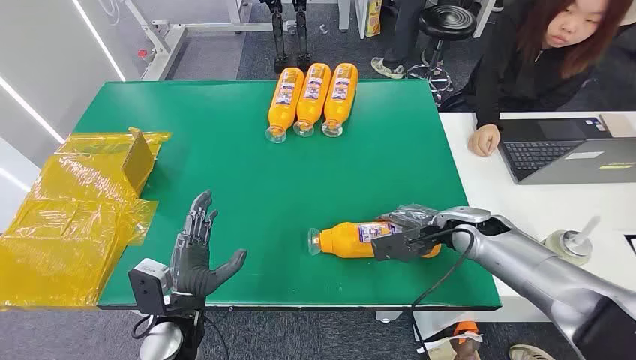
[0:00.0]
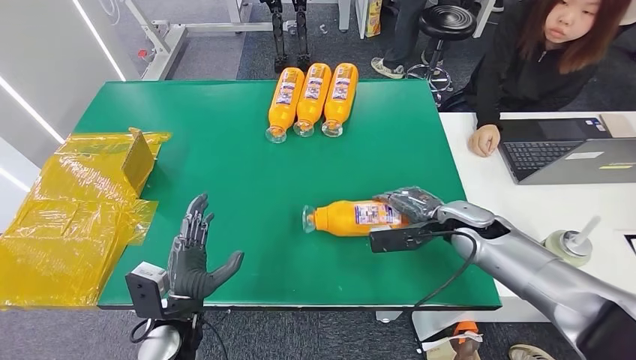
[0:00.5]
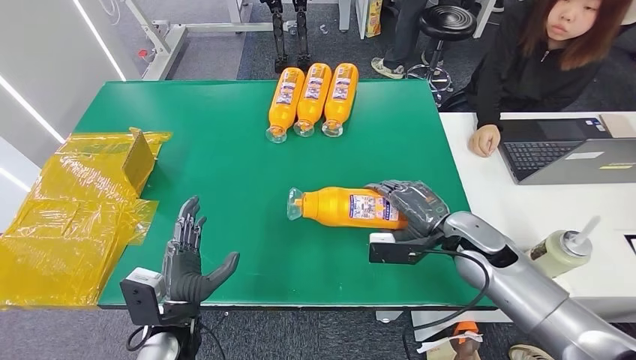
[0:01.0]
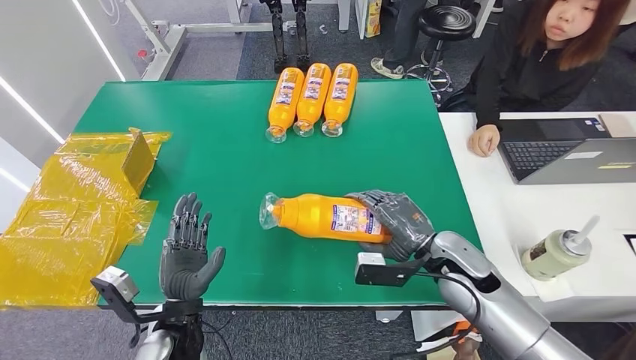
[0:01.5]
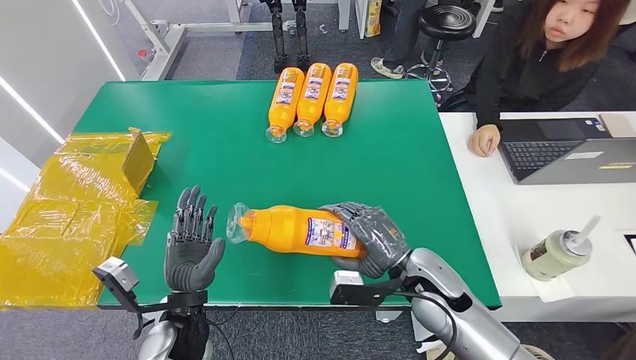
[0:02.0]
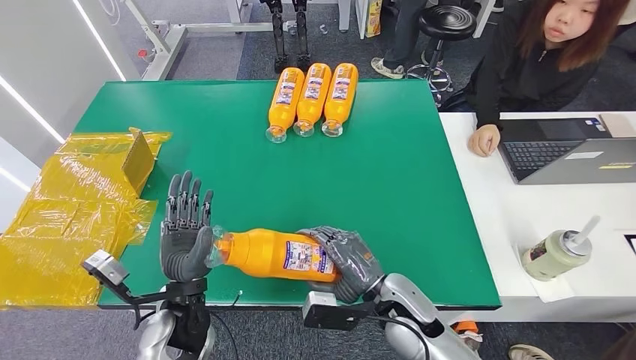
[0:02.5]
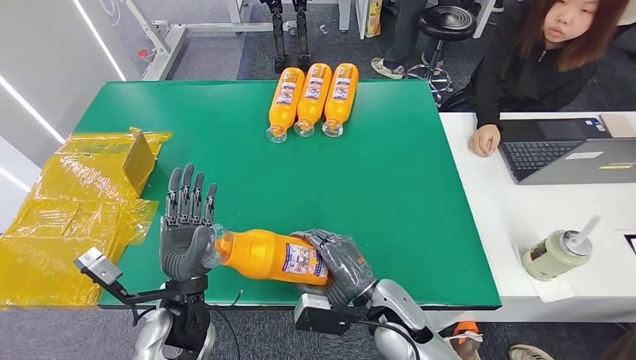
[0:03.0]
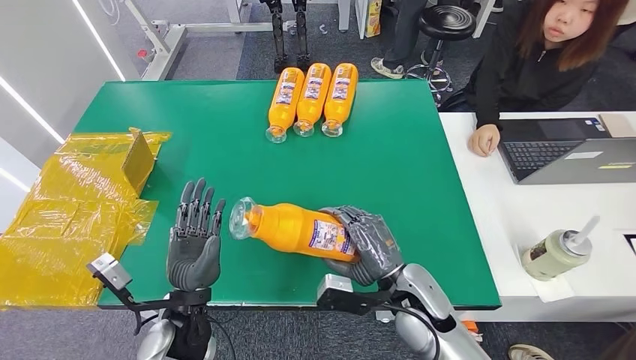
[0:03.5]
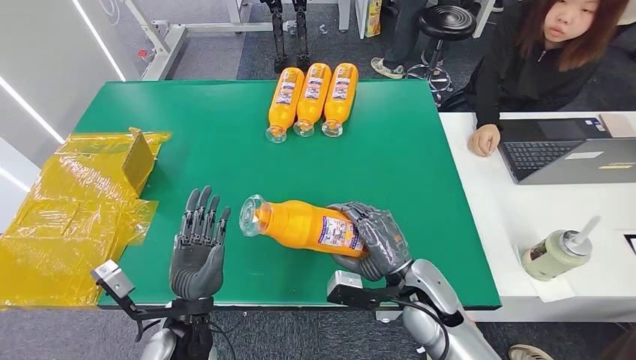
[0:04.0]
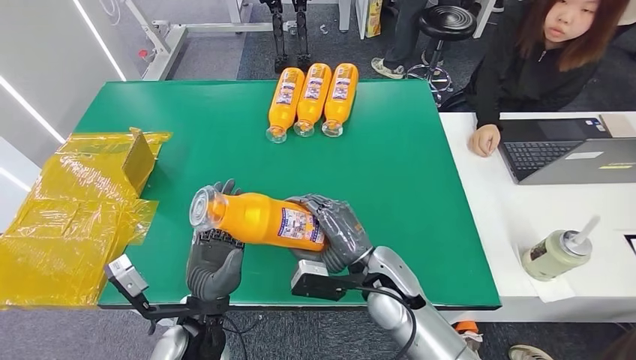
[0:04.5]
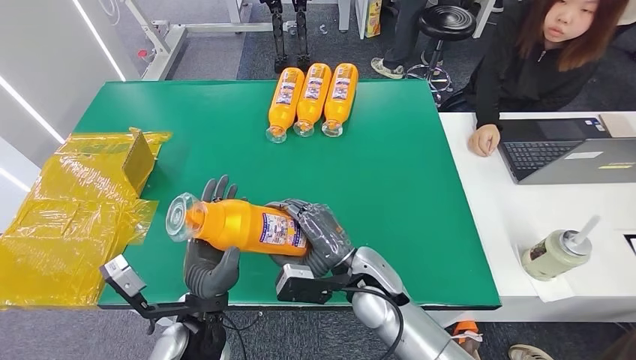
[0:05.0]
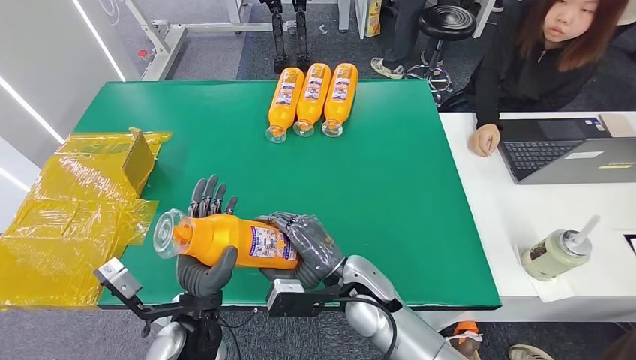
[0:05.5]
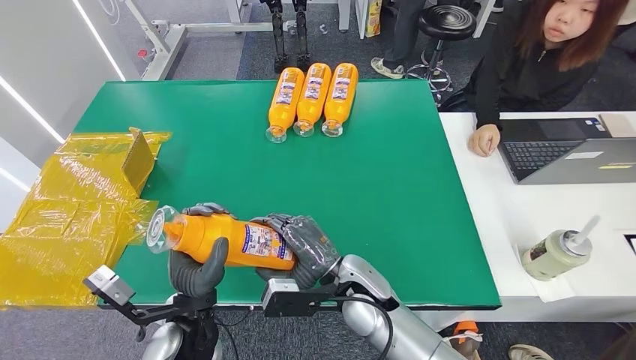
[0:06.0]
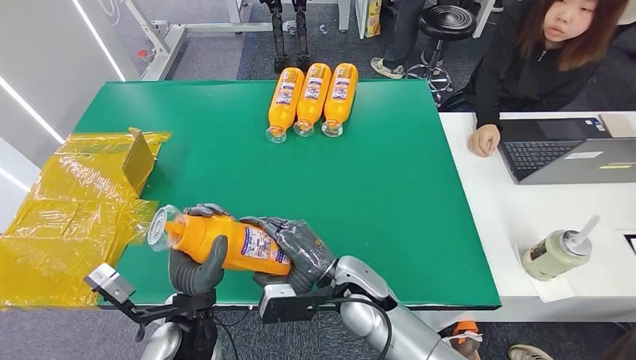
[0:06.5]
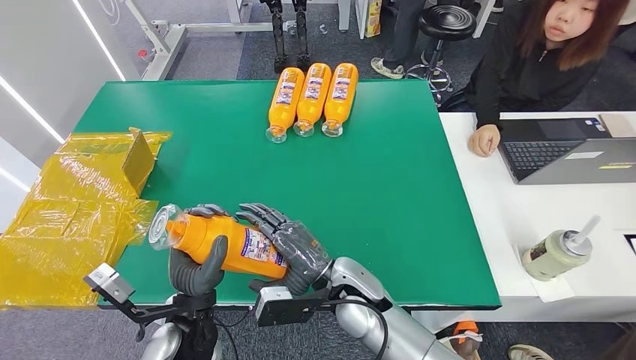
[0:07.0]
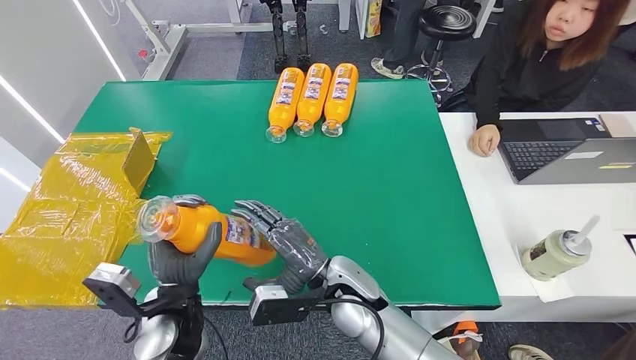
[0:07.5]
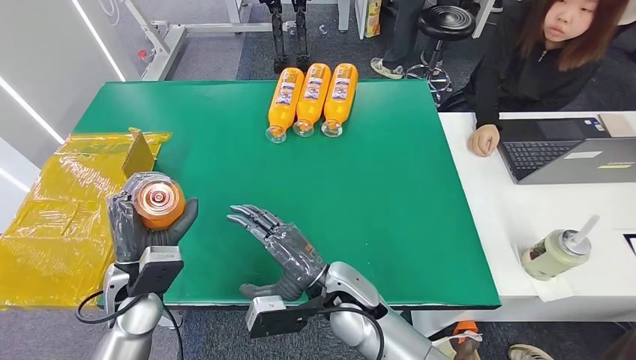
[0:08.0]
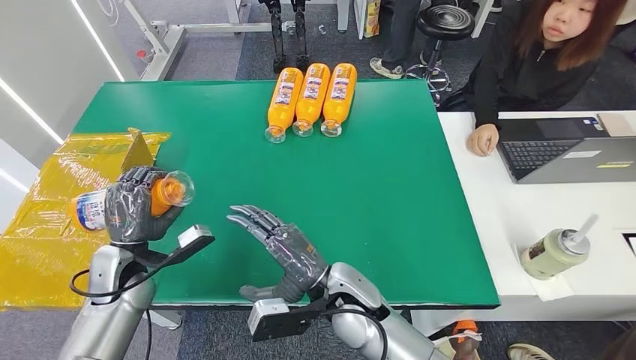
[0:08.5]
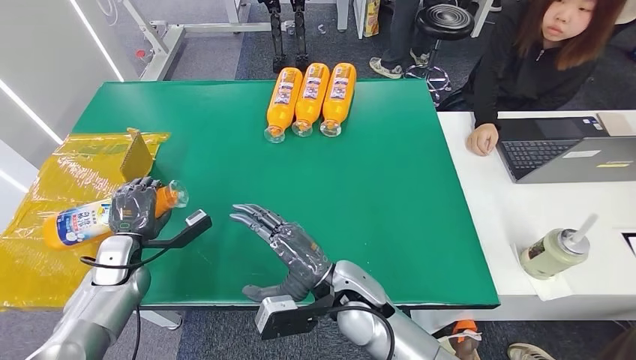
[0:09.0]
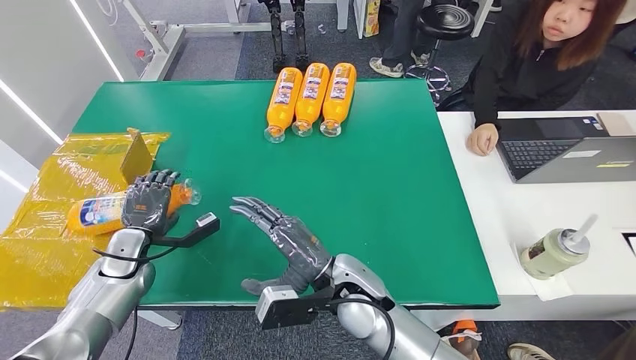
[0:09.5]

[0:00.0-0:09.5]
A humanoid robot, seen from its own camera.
Step, 0:00.0 to 0:03.0: Pick up the bottle from the table.
Step, 0:03.5 to 0:09.5: Turn the bottle to the front side.
0:04.0 to 0:05.5: The right hand shifts some 10 cm to the left.
0:07.5 to 0:09.5: The left hand travels to the left and forward by about 20 cm.
